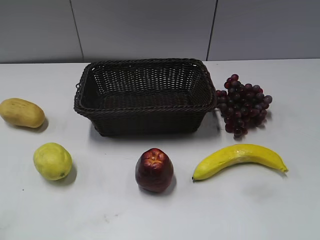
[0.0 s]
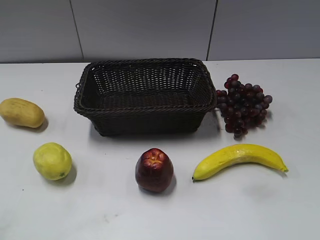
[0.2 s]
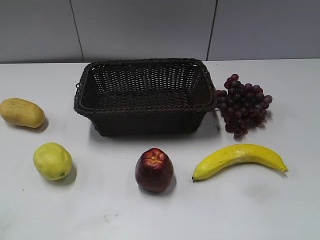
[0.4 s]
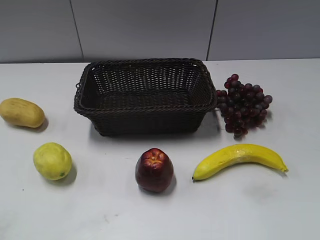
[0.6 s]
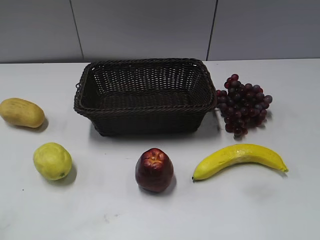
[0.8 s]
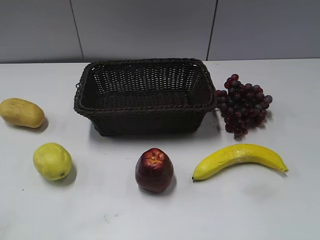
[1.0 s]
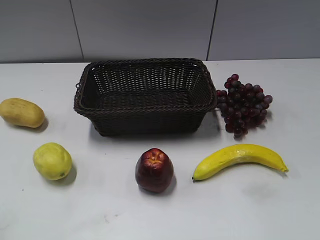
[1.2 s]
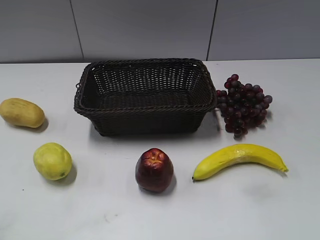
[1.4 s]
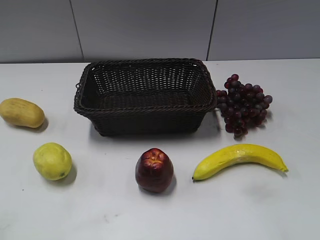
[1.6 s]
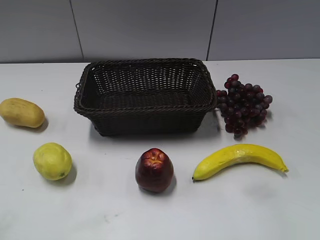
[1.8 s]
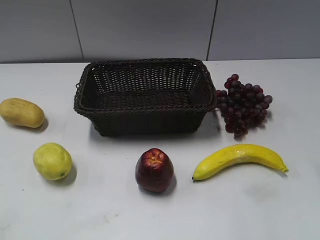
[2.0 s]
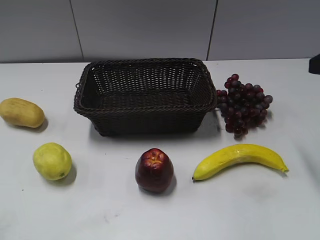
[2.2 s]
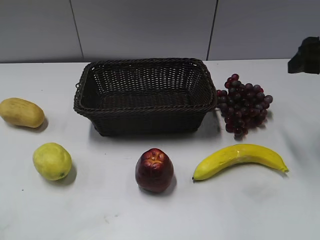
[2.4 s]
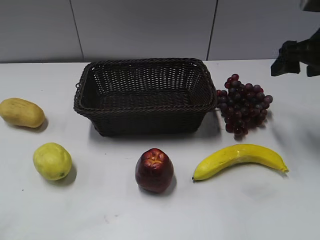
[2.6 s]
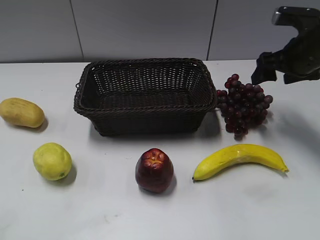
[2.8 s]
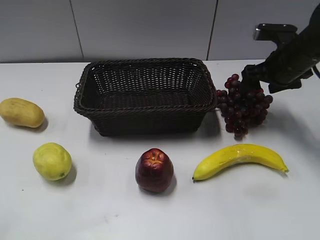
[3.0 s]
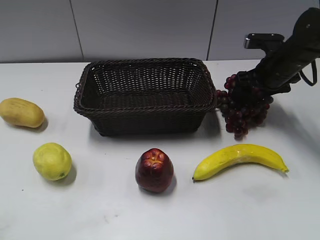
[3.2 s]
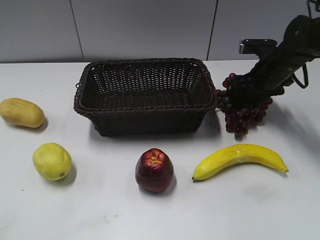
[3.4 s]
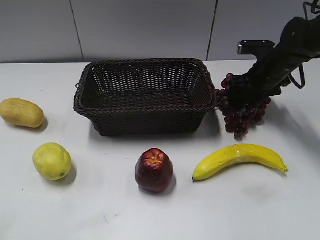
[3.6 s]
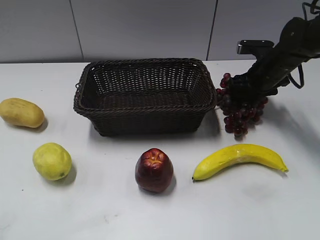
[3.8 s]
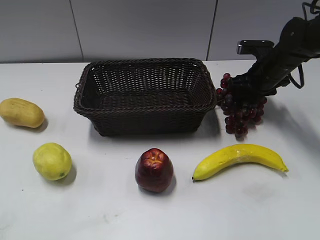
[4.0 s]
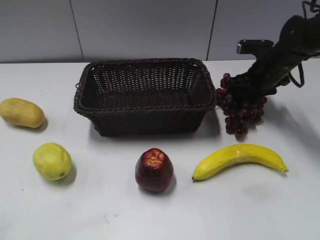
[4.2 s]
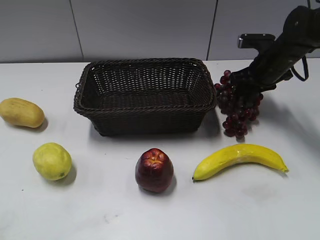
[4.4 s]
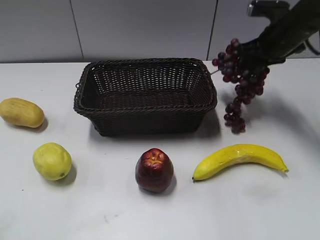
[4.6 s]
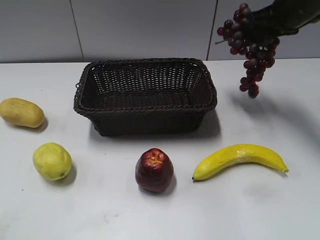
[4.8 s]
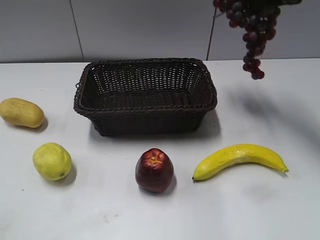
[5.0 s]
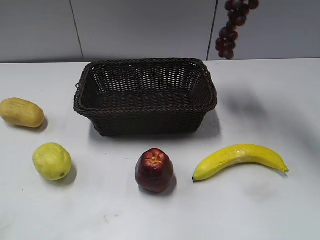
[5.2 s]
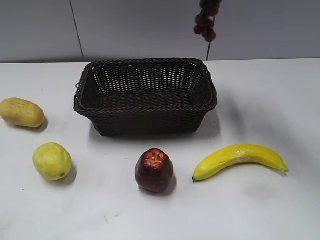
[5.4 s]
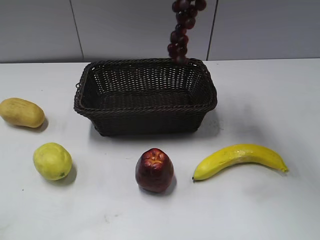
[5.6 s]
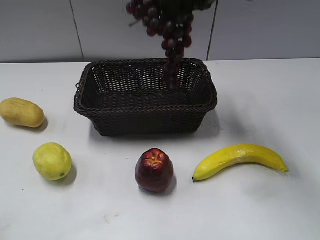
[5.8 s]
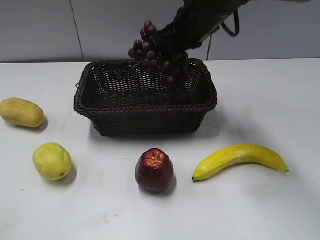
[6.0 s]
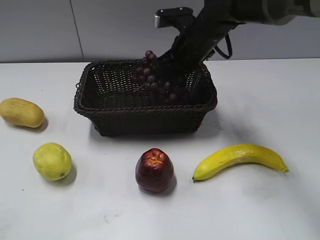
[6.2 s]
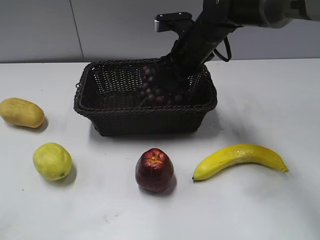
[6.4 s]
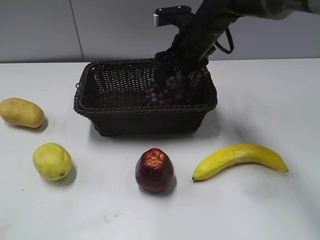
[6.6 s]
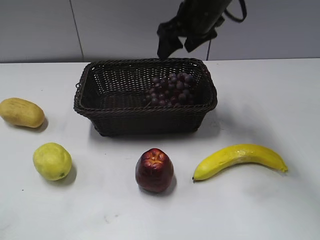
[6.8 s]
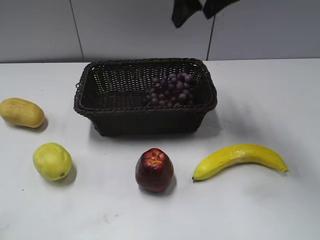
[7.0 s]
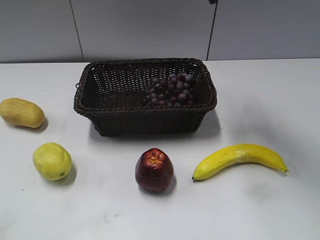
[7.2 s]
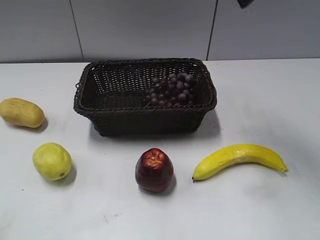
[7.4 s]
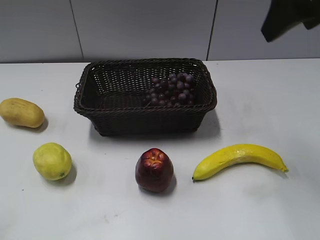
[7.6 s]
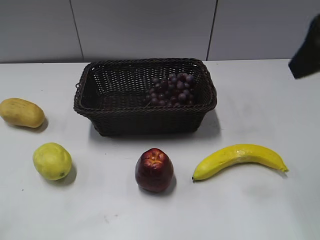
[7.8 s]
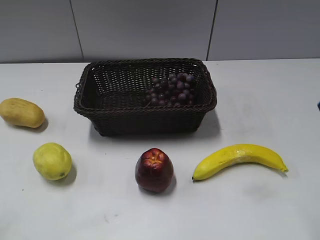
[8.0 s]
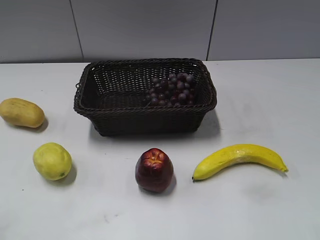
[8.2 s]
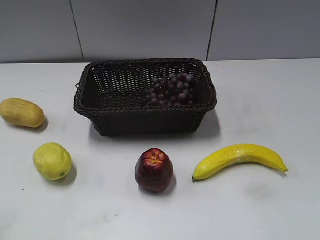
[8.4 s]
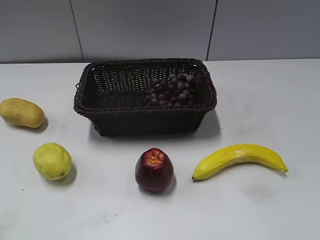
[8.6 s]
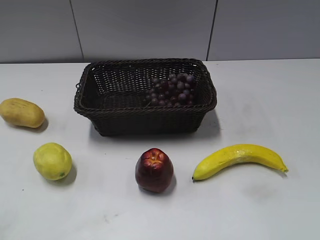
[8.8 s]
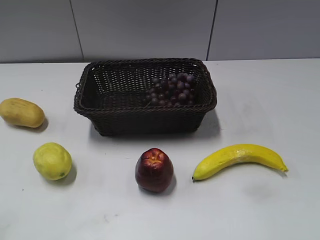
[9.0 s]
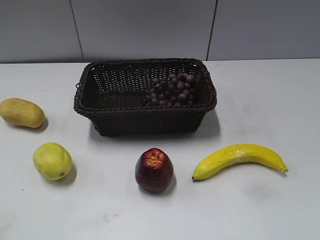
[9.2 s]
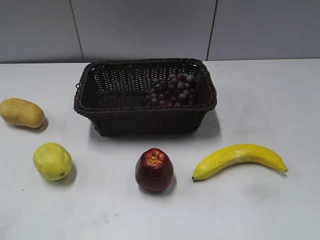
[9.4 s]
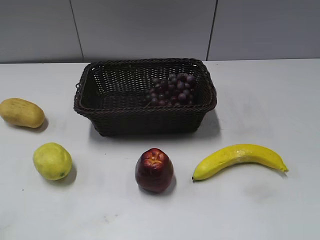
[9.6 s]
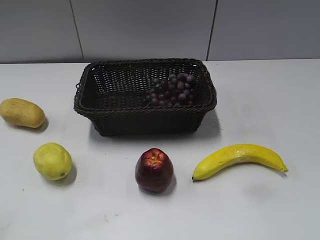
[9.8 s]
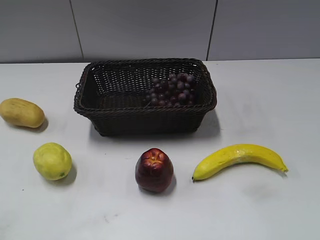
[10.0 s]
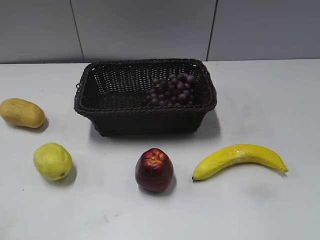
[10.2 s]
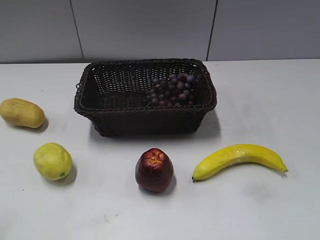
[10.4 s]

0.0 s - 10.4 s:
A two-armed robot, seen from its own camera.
Step, 2.2 s - 4.0 s: Grasp the grape with right gripper.
Step, 4.2 s - 6.6 s: Place the grape in the basket with right gripper.
1.4 s - 3.0 s: The right gripper goes roughly 40 cm forward.
3.0 s - 4.4 s: The right gripper shifts by approximately 5 cm, and closes its fingers.
4.4 s - 6.0 s: The right gripper shifts approximately 20 cm to the left and upward.
6.0 s - 7.4 s: The right gripper goes roughly 20 cm upward, to the right and backward, and opens.
7.4 s - 9.0 s: The right gripper is displaced backward, downward and to the right by roughly 30 cm.

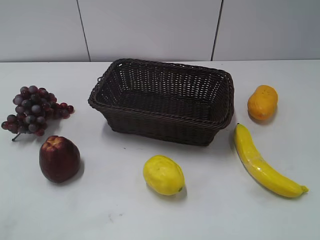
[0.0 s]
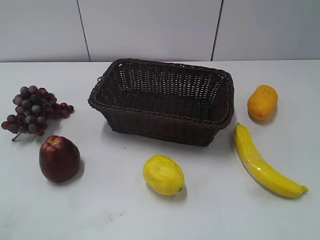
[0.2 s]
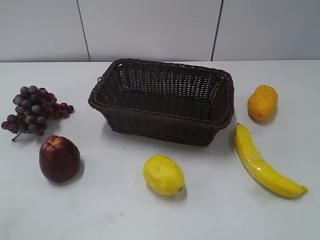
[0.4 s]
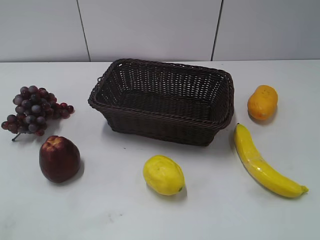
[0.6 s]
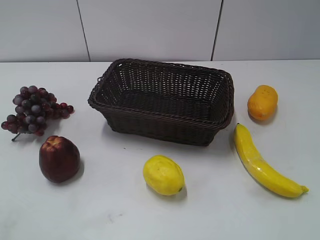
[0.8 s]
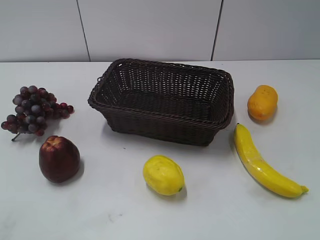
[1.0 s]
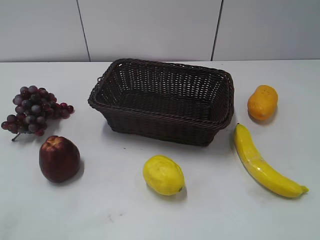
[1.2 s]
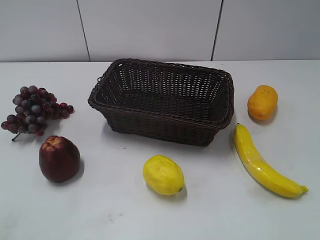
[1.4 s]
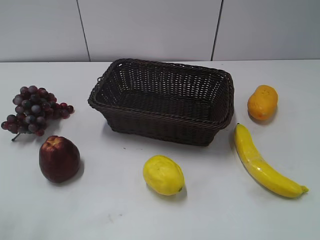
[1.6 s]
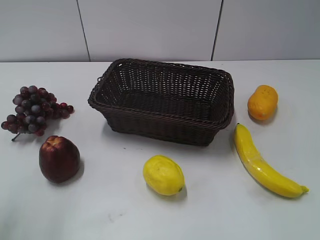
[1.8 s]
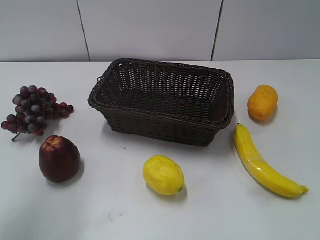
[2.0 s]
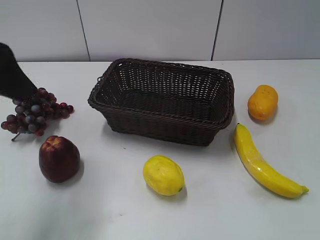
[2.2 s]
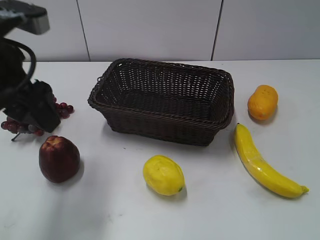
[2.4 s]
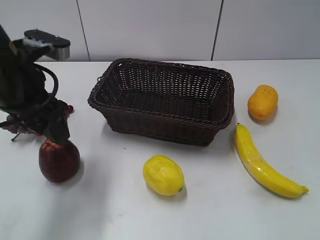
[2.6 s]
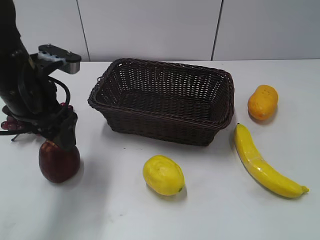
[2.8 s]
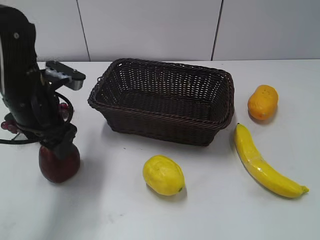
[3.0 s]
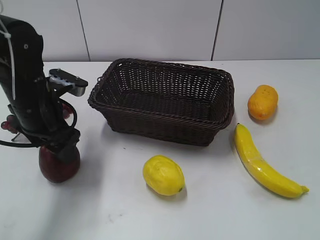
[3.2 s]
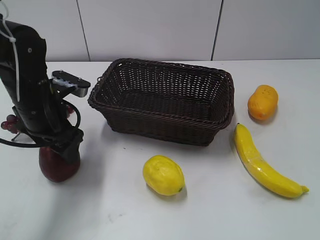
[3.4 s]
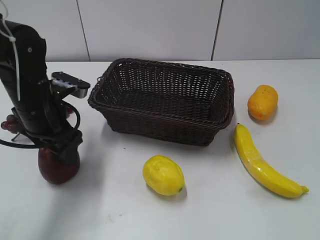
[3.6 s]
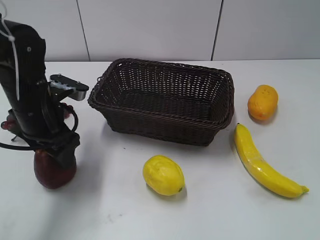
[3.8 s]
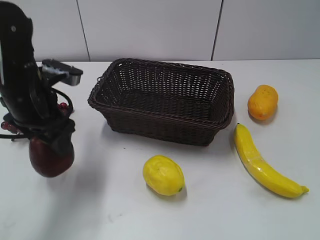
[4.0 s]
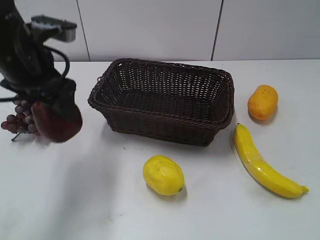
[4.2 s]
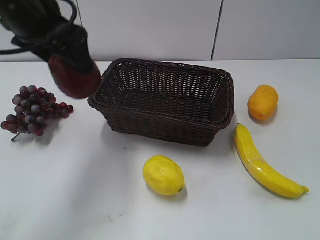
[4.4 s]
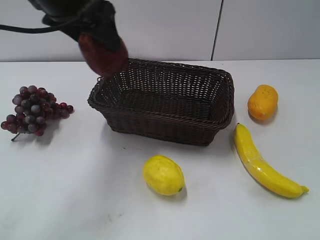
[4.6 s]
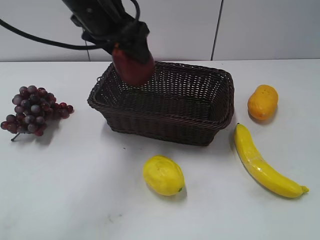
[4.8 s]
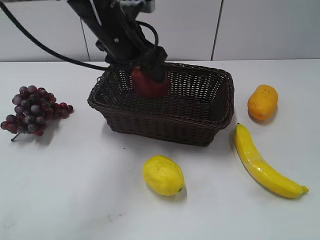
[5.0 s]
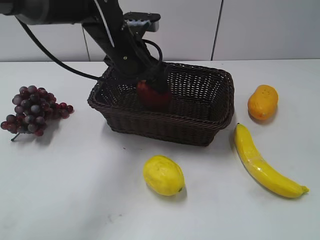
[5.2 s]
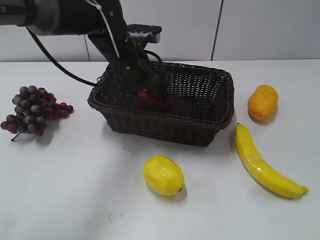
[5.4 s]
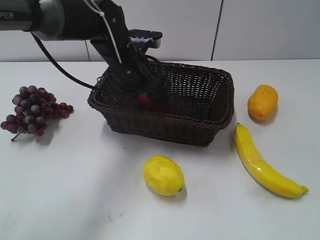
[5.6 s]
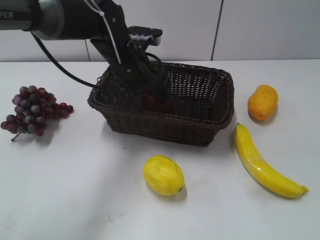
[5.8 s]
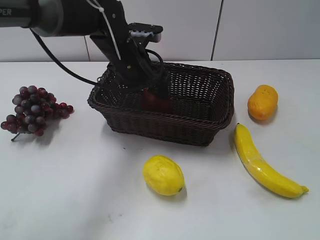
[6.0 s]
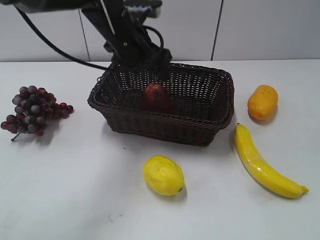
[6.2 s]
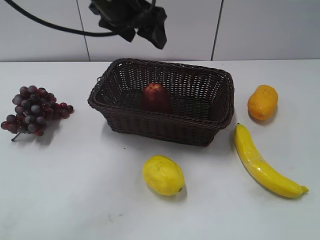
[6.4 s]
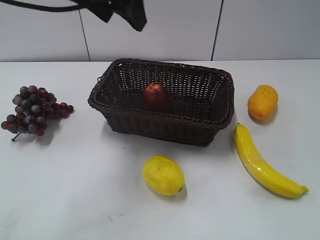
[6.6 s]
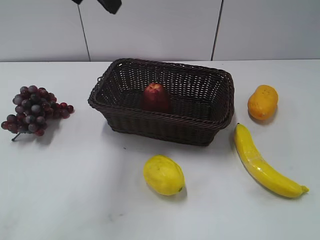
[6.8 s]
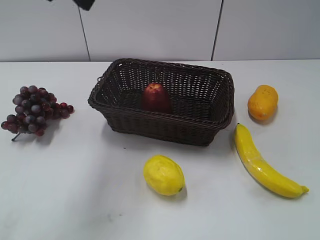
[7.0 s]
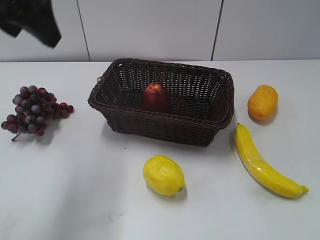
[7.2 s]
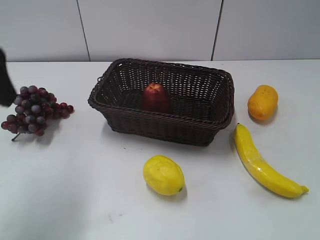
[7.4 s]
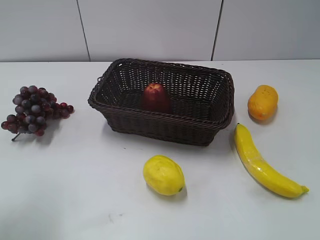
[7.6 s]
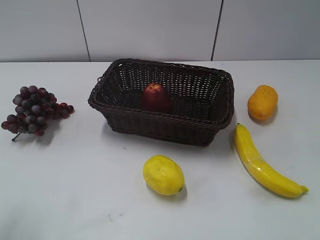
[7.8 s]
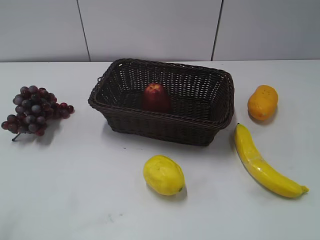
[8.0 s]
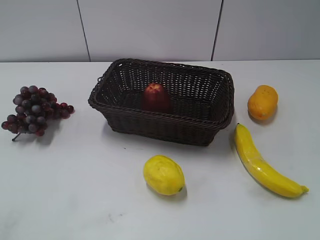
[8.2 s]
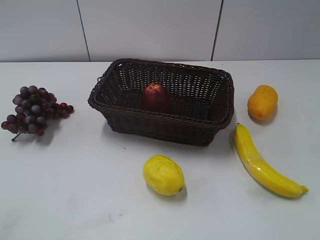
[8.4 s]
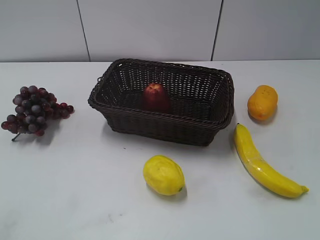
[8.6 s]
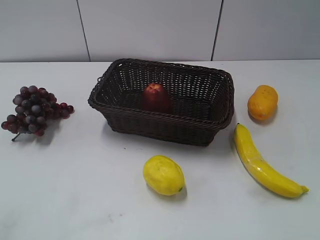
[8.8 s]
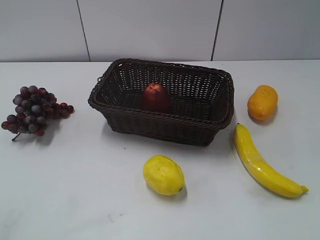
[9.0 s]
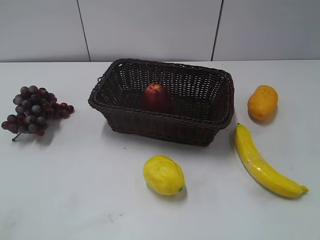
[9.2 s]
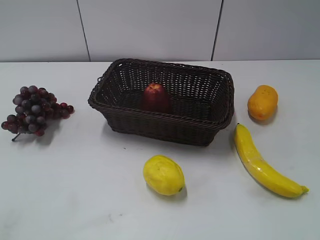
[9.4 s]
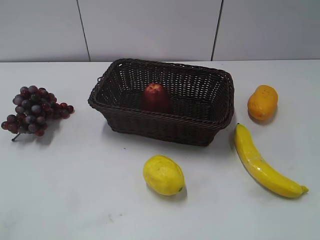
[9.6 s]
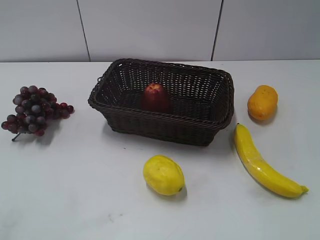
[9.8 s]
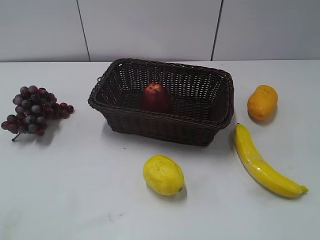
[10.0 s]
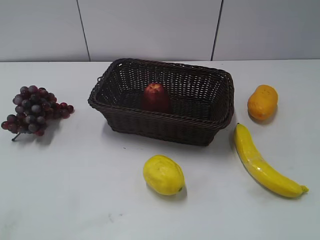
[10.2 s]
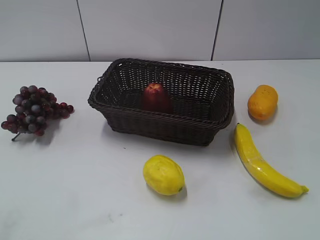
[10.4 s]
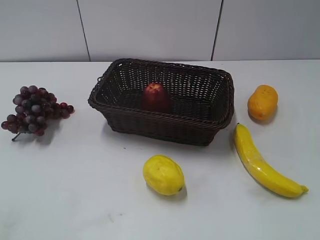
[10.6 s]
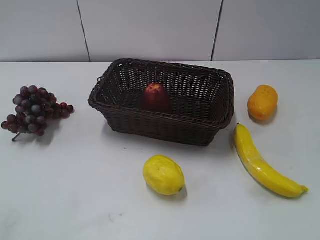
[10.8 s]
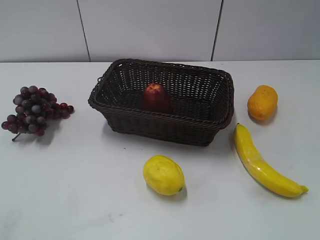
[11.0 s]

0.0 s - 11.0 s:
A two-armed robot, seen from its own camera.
Step, 2.2 s - 3.4 s: Grasp the apple with left gripper.
Step, 3.6 s - 5.8 s: Place the apple in the basket with left gripper.
1.6 s - 3.2 s: The left gripper goes roughly 30 cm downward, forward and to the right.
3.2 s - 4.8 s: The left gripper goes about 15 cm upward, to the right and forward, and closes.
4.8 s - 6.2 s: The left gripper moves roughly 10 cm downward and comes back, and opens its fingers.
6.2 s - 7.8 s: The left gripper is displaced backward and to the left by roughly 35 cm.

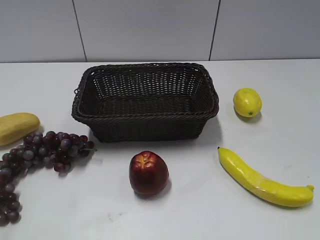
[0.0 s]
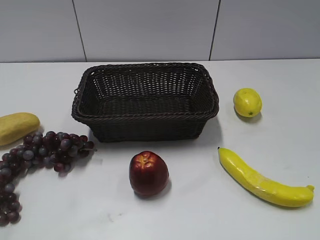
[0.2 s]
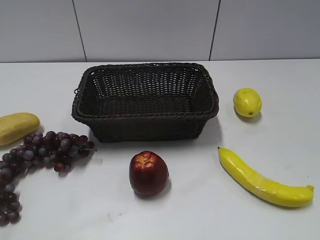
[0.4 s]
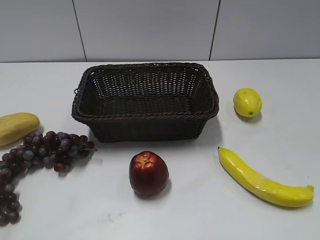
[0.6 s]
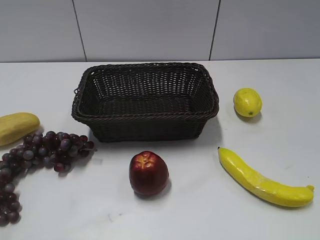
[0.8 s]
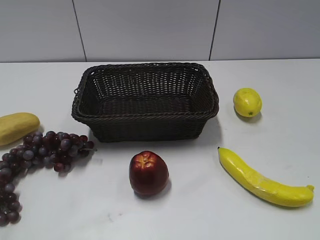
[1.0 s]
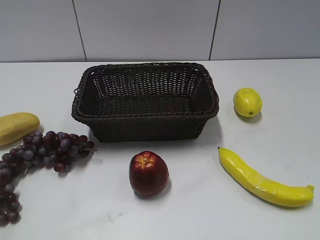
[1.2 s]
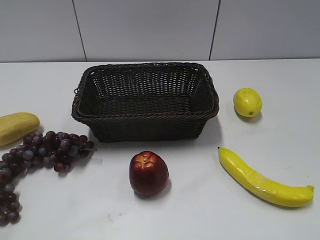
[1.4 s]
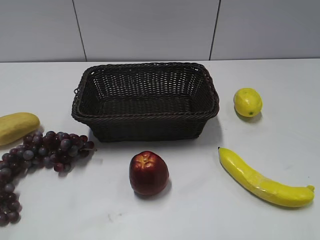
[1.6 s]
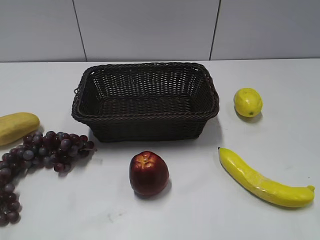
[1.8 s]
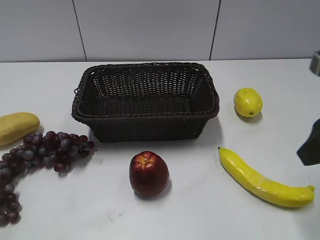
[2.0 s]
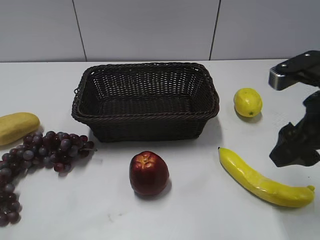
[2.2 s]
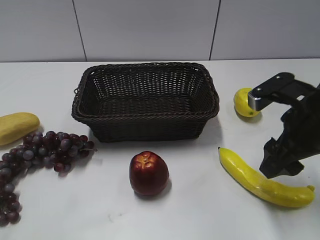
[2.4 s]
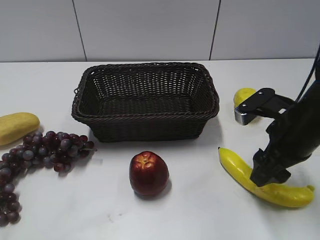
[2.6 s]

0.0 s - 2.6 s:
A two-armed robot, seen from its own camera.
1.2 s - 2.6 s: The right gripper shifts about 25 cm forward, downward and to the left.
